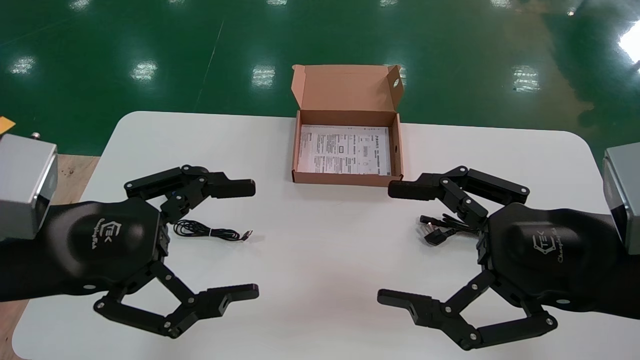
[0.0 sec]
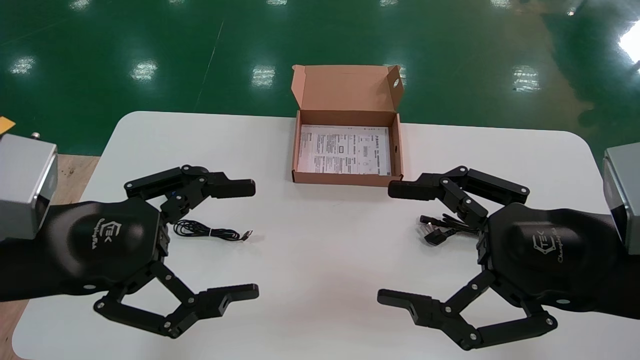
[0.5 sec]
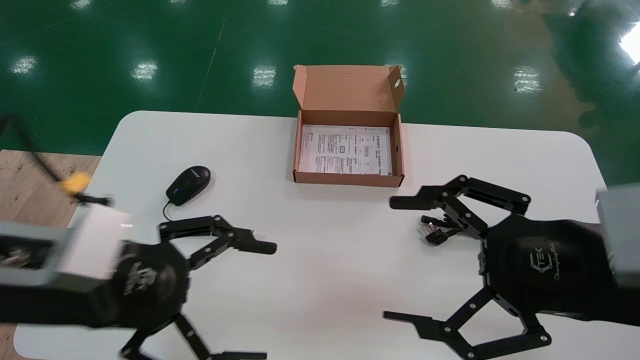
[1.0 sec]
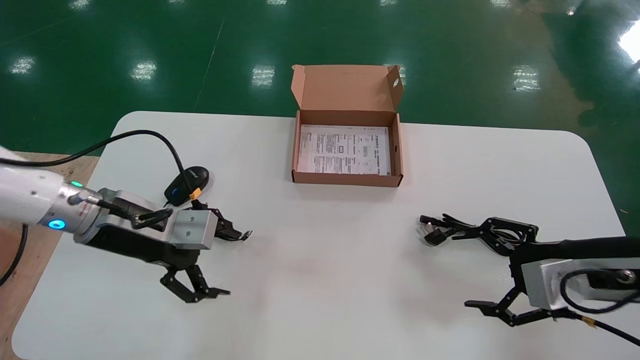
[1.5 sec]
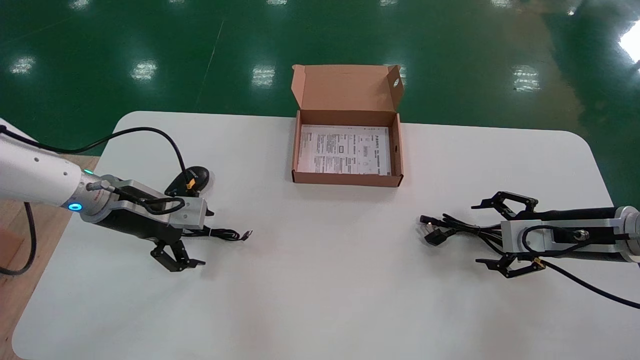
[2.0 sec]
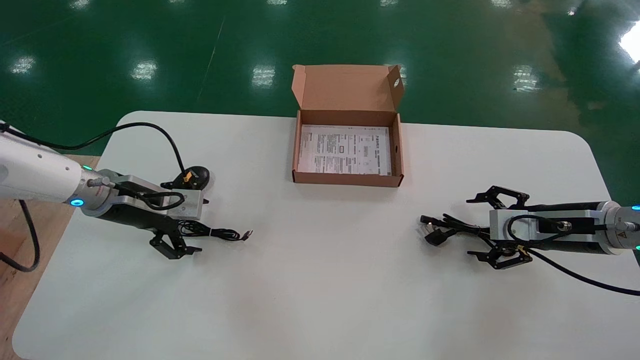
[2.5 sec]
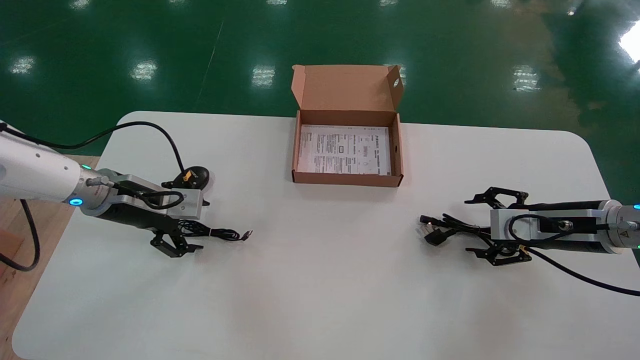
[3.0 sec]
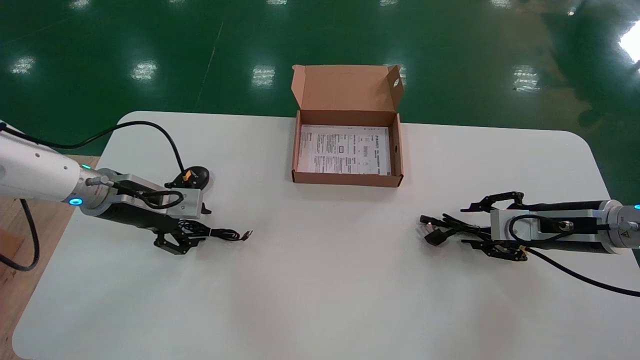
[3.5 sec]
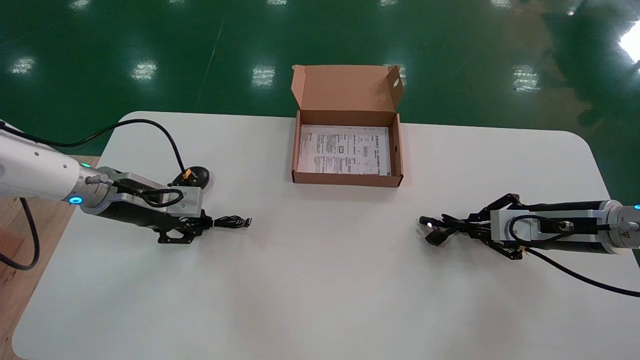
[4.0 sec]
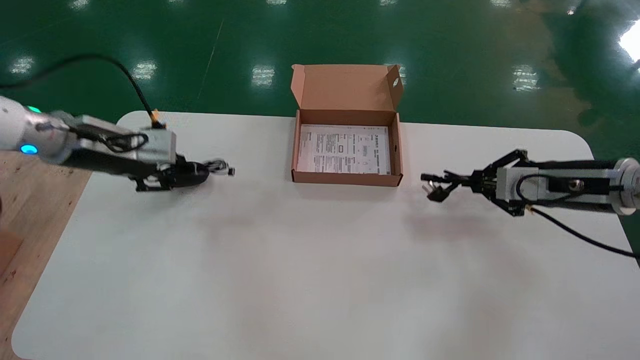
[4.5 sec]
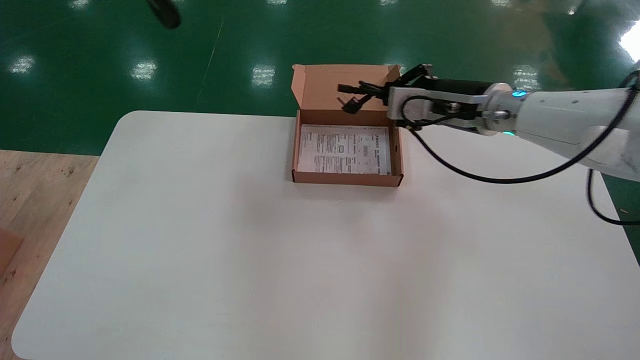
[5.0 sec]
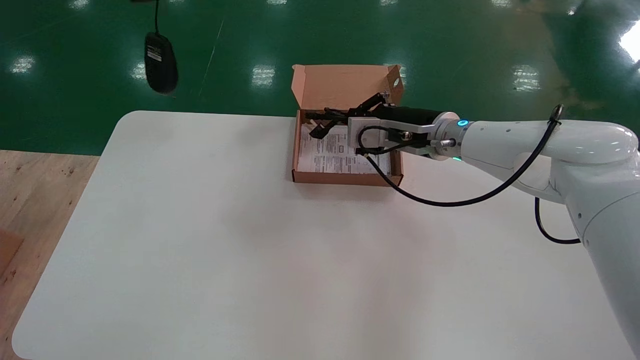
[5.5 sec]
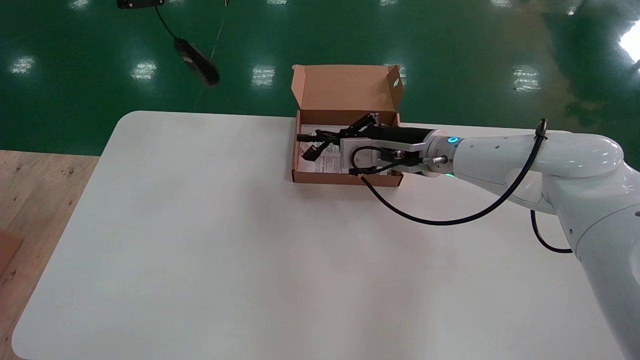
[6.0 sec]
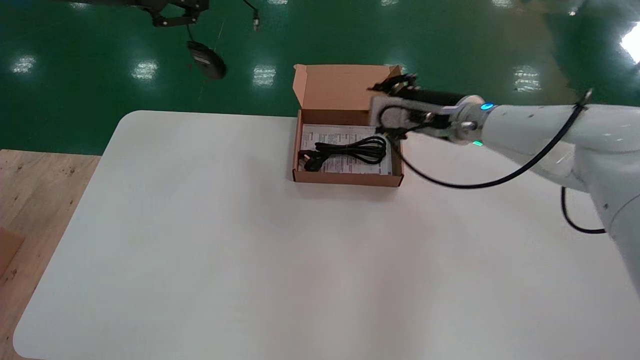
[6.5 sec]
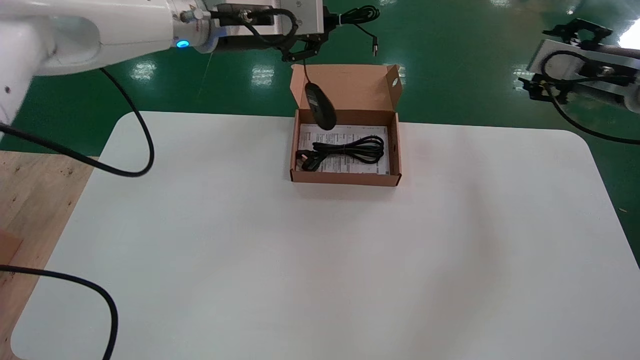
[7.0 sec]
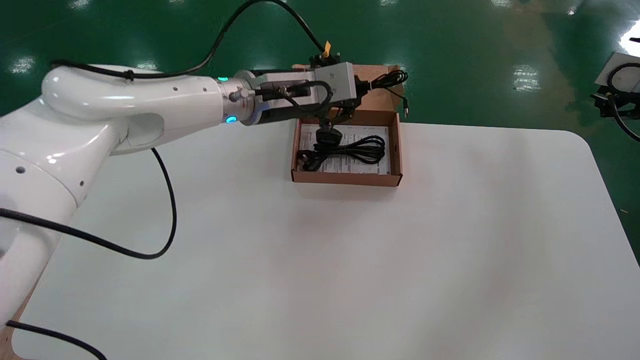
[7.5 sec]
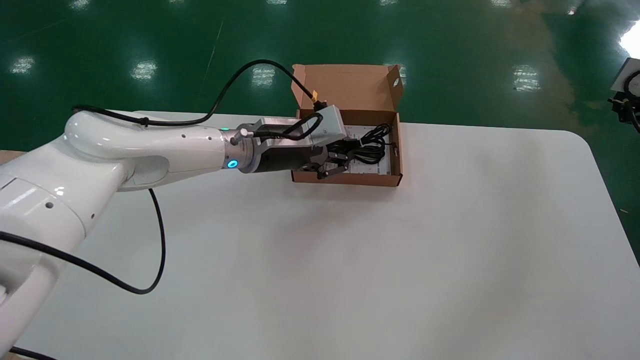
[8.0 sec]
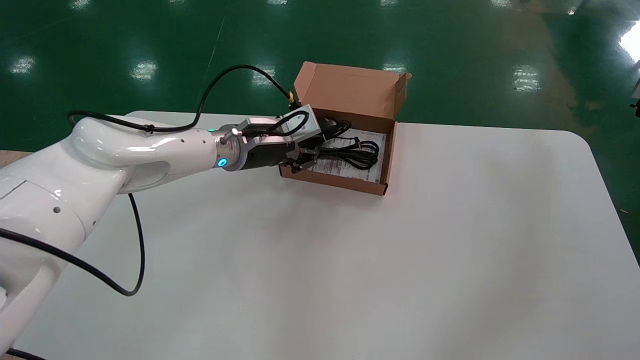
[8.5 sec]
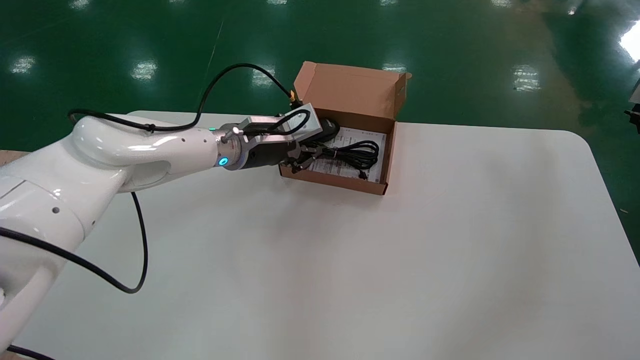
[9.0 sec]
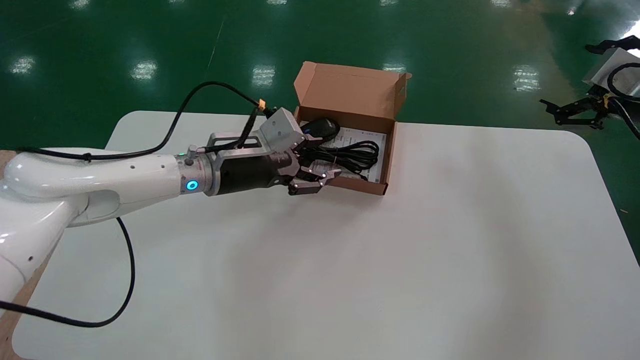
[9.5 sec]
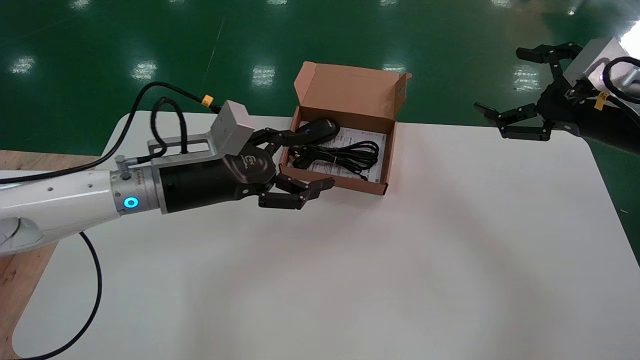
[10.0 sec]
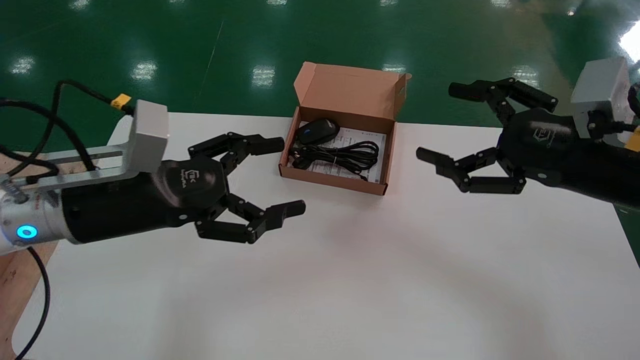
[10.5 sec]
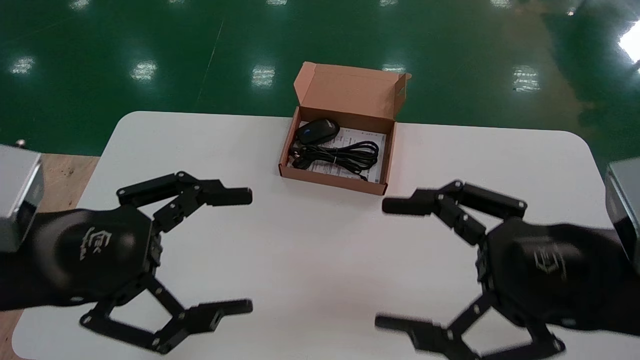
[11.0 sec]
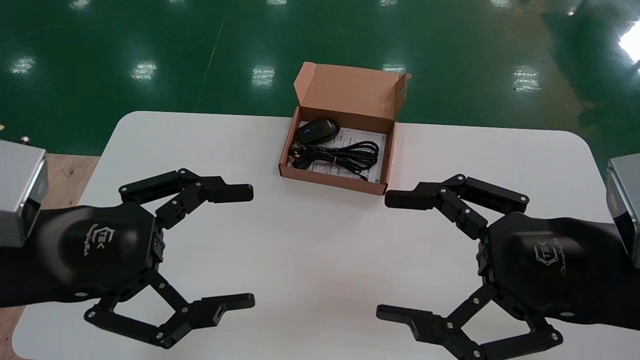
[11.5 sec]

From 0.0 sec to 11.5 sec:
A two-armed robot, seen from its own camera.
Step, from 1.5 sec to 3.5 sec: Simultaneously pick up the mouse and power cord from the accessory packaging area.
Step, from 4.0 sec to 9.0 sec: Place the mouse and power cord into the box.
From 0.0 sec to 2.0 sec: The left gripper travels forward by about 20 cm. Meanwhile the right gripper moves forward, to the right and downward, some 25 cm.
From 2.0 sec to 4.0 sec: The right gripper closes its fingers. The left gripper closes up.
From 4.0 sec to 6.0 sec: The left gripper moves upward, about 30 cm. Meanwhile the right gripper travels to the left by some 25 cm.
From 6.0 sec to 7.5 sec: The right gripper shifts about 30 cm to the right, and opens its fingers. Meanwhile the left gripper is displaced to the right and downward by roughly 25 cm.
From 7.5 sec to 9.5 sec: The left gripper shifts some 10 cm downward and to the left, and opens its fingers.
From 9.5 sec to 11.5 sec: The grippers both shift backward and to the left by approximately 30 cm. The left gripper opens its fingers.

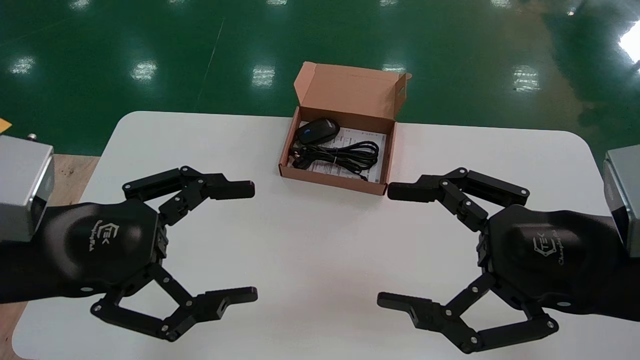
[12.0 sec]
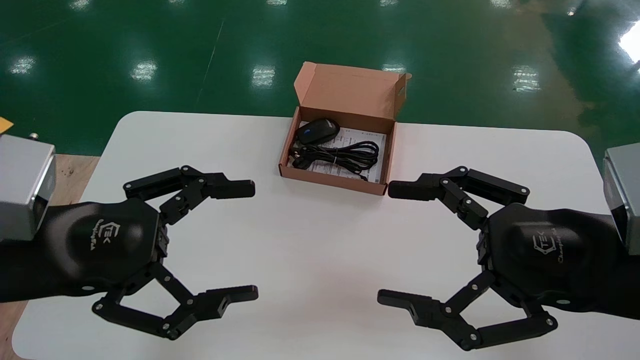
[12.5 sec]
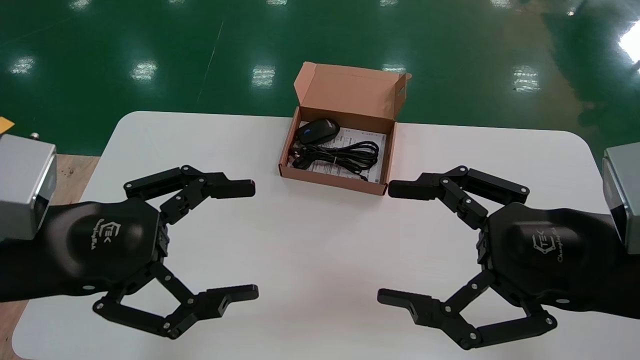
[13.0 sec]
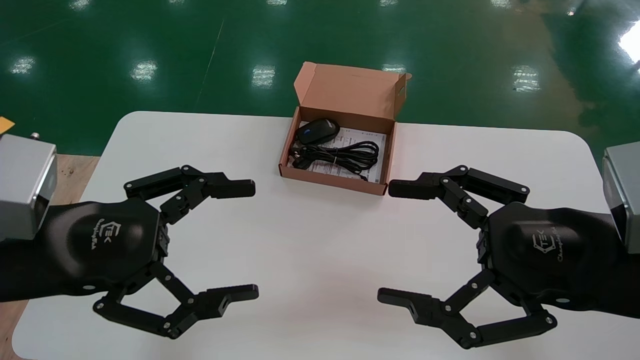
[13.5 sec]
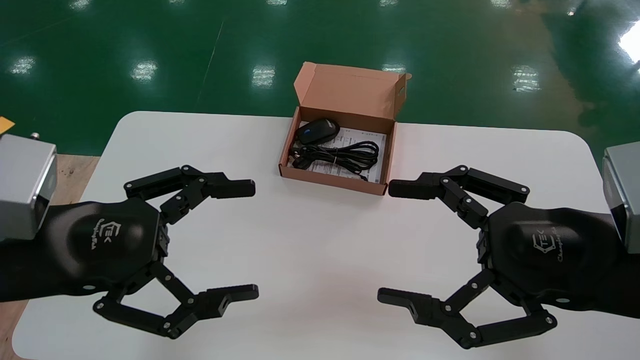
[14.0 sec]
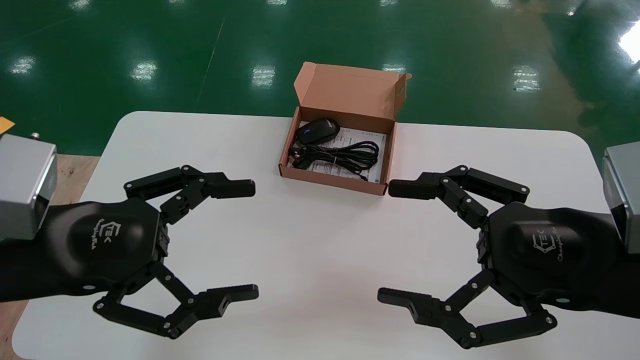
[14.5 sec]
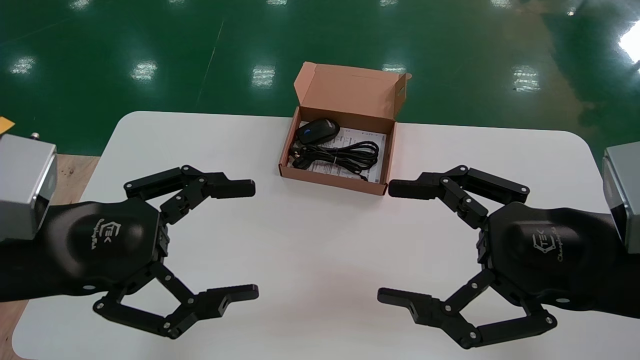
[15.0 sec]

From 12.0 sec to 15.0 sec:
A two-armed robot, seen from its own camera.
From 12.0 sec to 15.0 sec: Neither gripper changes place.
